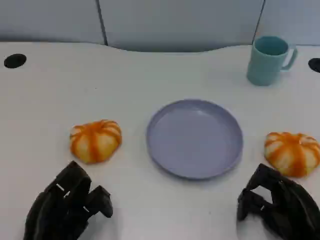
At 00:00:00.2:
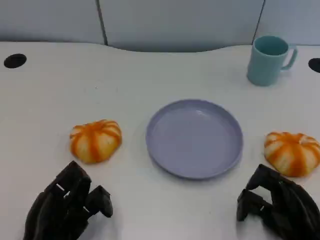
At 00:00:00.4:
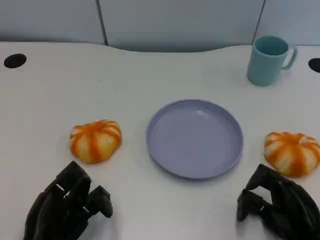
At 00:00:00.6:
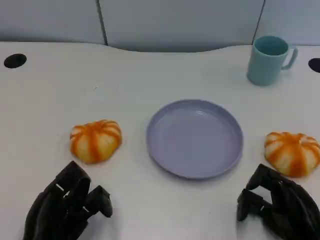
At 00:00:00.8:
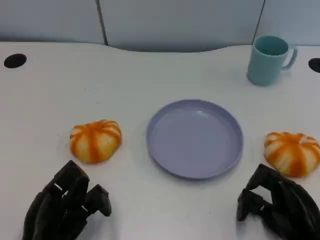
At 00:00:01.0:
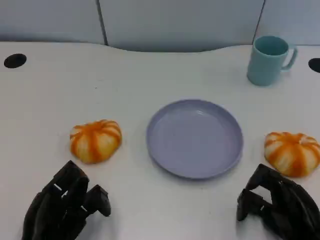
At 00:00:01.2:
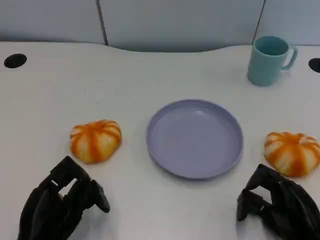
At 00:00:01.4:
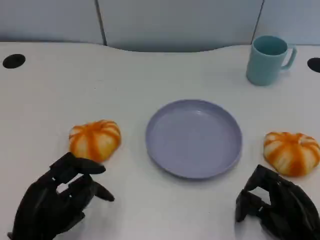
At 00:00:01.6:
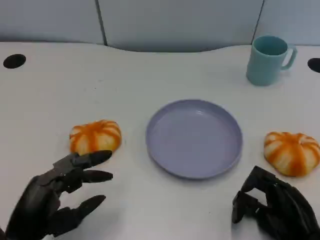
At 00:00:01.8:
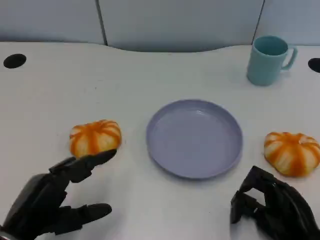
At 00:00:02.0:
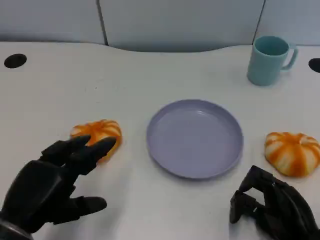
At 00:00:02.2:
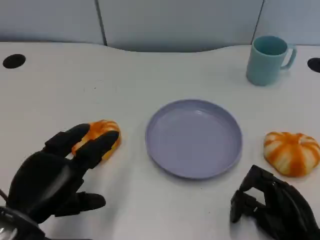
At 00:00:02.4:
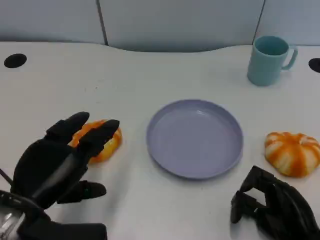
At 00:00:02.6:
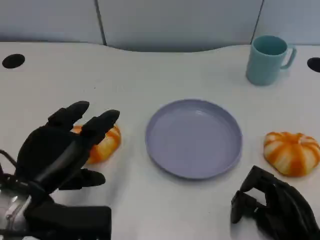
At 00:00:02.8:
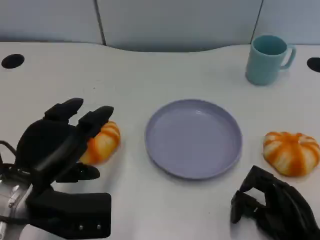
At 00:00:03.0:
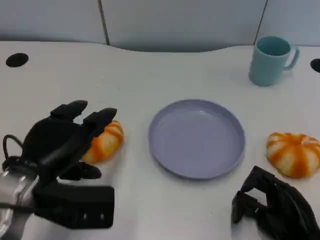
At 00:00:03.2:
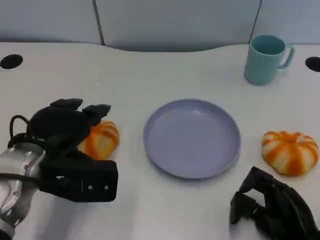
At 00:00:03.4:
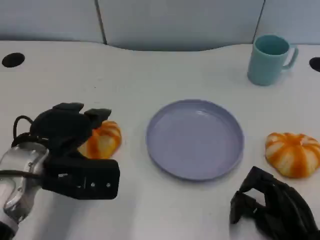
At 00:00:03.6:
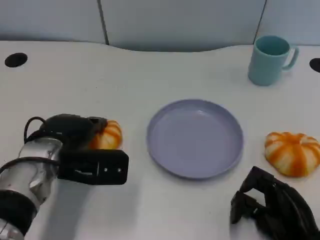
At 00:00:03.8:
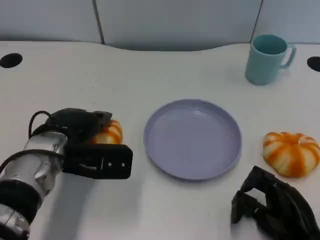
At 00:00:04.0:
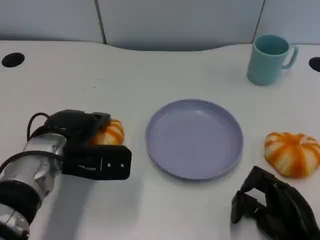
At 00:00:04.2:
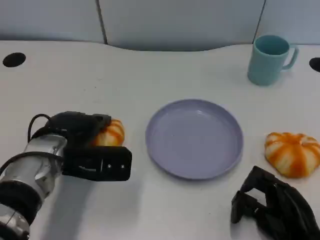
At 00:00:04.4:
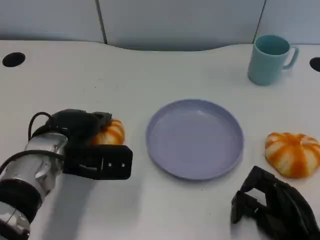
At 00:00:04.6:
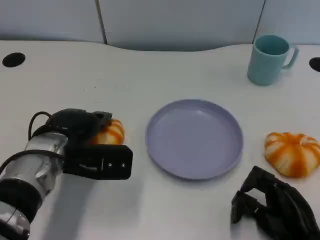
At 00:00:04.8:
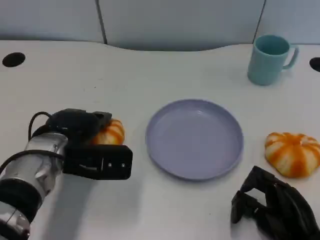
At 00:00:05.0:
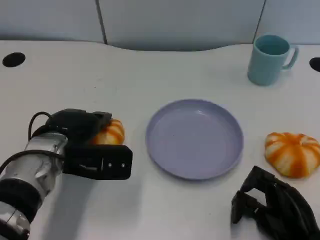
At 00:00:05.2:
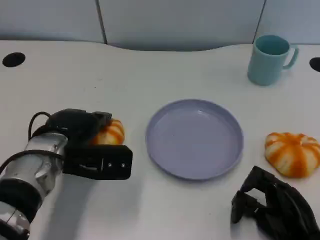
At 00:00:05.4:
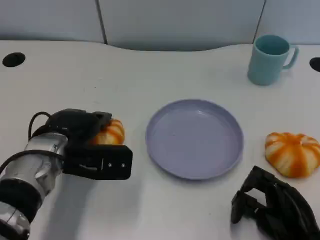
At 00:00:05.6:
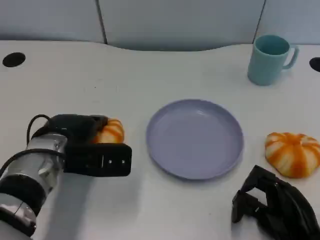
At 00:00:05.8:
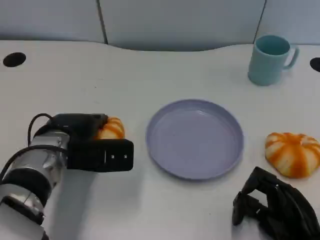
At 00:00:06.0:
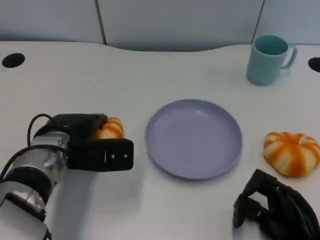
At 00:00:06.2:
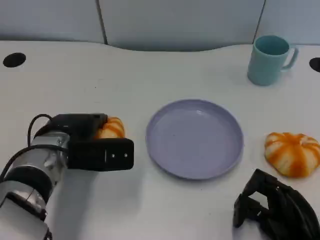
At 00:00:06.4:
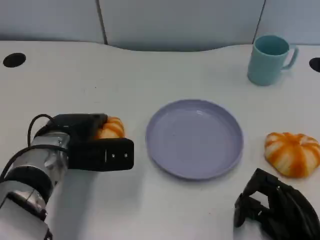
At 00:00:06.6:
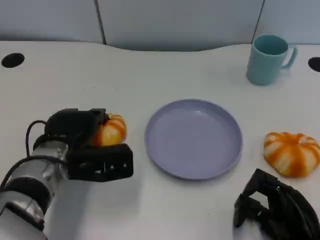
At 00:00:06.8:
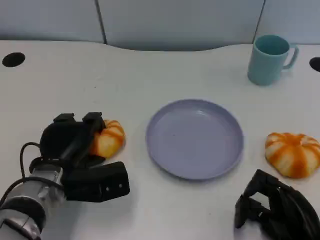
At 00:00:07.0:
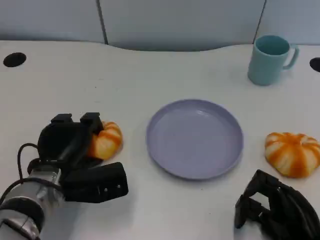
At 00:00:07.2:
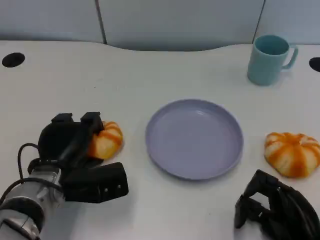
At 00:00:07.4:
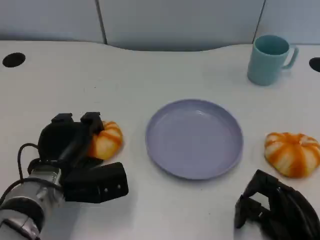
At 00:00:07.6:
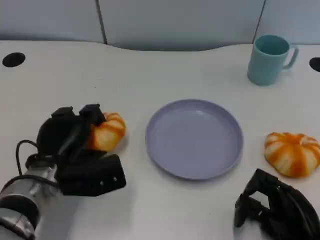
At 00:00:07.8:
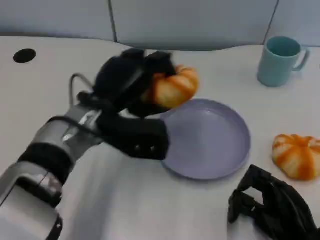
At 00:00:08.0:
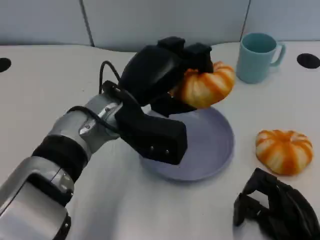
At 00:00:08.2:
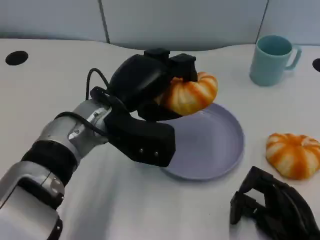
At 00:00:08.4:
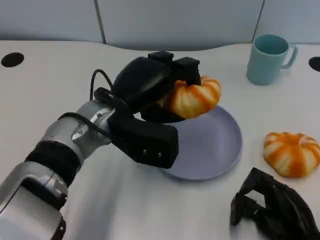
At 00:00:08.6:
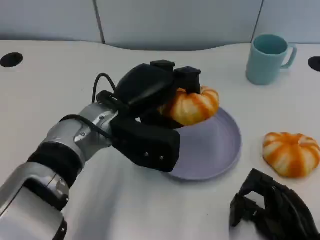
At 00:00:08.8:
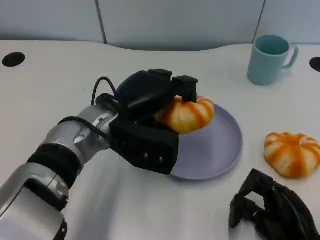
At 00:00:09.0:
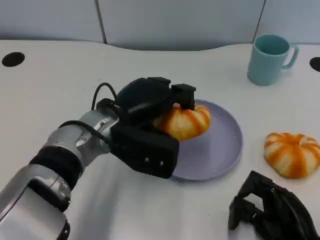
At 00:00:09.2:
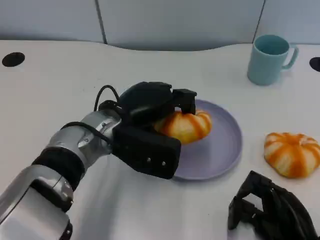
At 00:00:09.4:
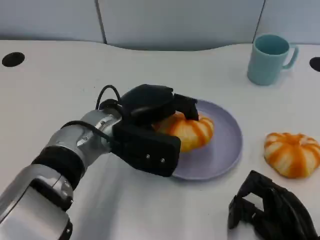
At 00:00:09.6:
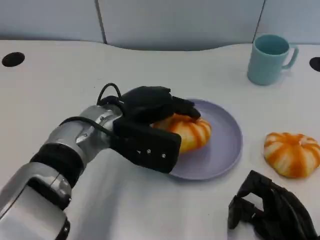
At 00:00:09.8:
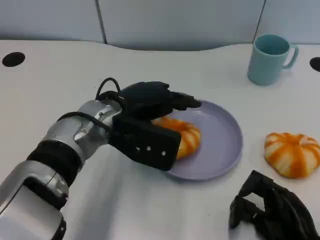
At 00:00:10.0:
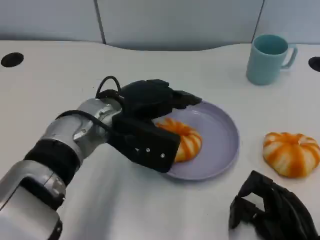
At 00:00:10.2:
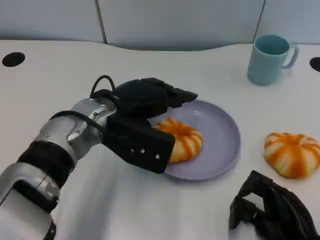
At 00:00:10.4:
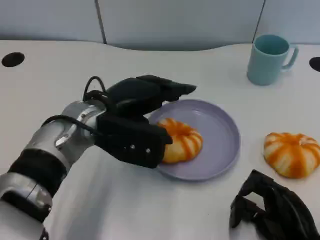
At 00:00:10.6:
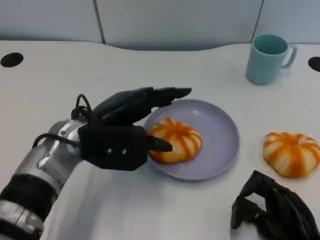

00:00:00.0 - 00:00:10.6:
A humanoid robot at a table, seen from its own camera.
Task of the whole recording: Grasp the bread from the table and place it into the plate.
00:00:01.6 - 00:00:03.0: The left hand shifts roughly 10 cm forward and upward.
00:00:03.0 - 00:00:04.6: The left hand heads forward, covering roughly 5 cm.
00:00:04.6 - 00:00:06.0: The hands move only a little.
00:00:07.6 - 00:00:09.0: The left hand goes some 10 cm to the right and upward.

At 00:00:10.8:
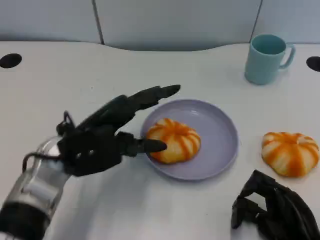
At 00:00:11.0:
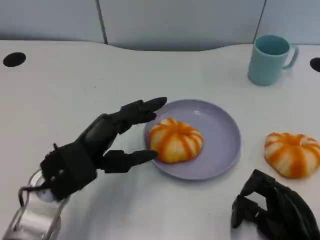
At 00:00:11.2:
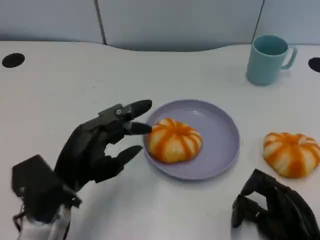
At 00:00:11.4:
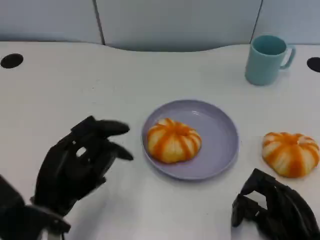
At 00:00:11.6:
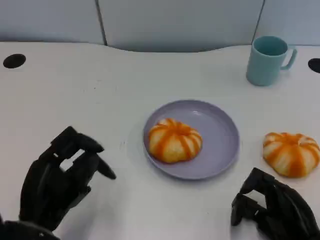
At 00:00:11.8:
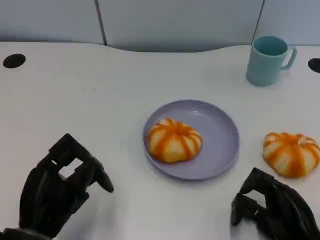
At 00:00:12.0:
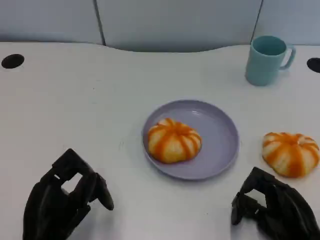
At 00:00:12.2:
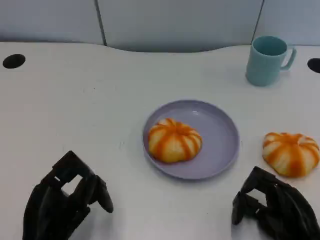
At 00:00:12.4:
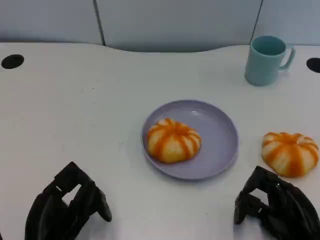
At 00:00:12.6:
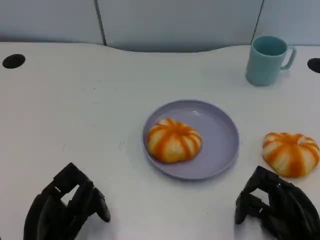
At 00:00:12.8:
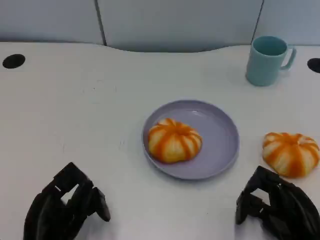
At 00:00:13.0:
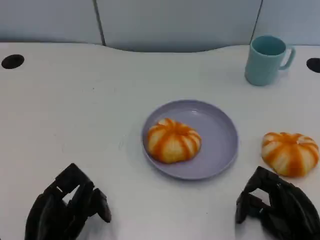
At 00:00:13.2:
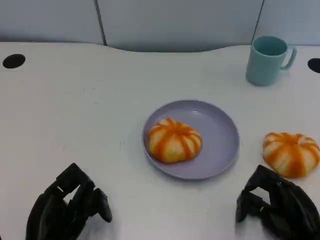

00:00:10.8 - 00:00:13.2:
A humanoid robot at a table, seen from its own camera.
Task of the whole recording: Grasp the bread from the table and place it into the plate.
00:00:10.8 - 00:00:12.0: The left hand goes approximately 15 cm backward and downward.
00:00:12.0 - 00:00:13.2: The hands make only small movements.

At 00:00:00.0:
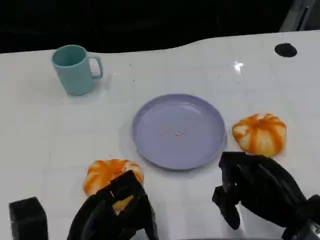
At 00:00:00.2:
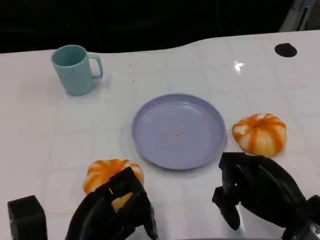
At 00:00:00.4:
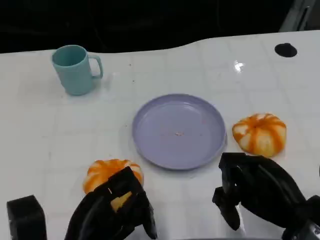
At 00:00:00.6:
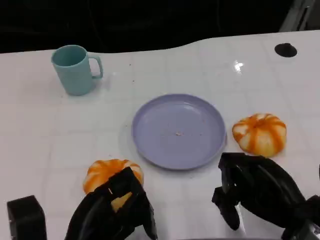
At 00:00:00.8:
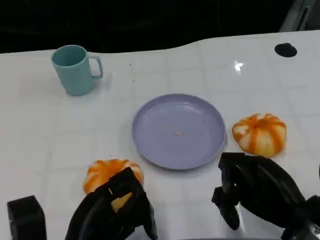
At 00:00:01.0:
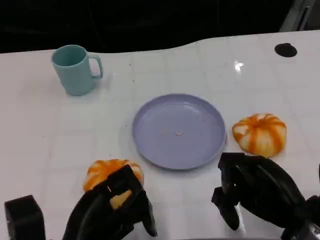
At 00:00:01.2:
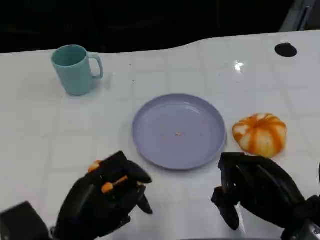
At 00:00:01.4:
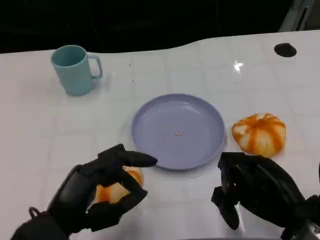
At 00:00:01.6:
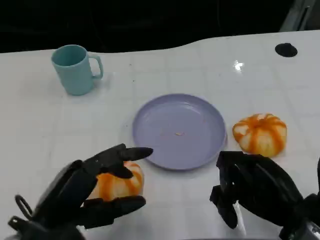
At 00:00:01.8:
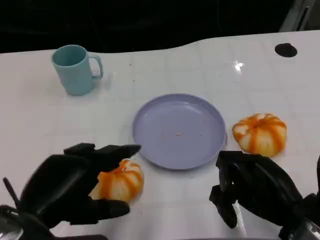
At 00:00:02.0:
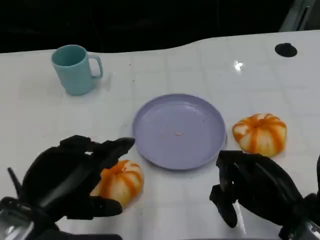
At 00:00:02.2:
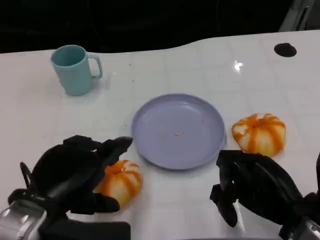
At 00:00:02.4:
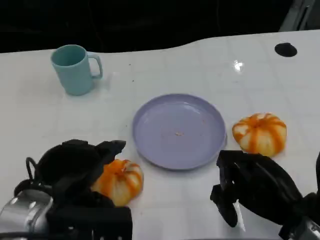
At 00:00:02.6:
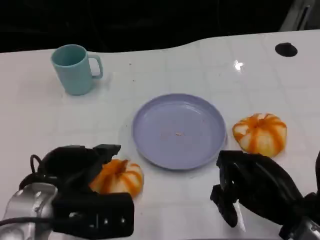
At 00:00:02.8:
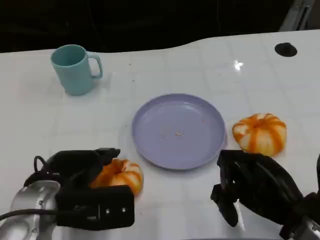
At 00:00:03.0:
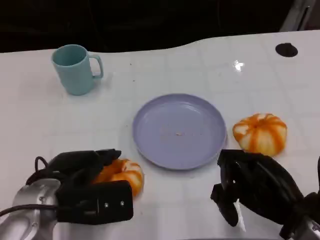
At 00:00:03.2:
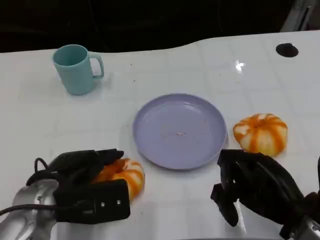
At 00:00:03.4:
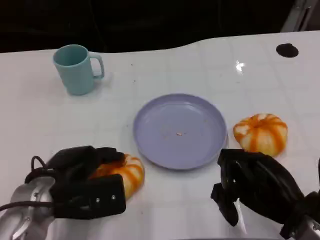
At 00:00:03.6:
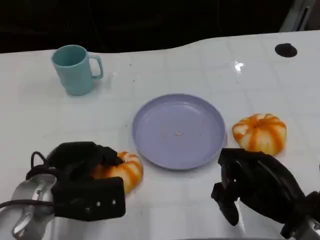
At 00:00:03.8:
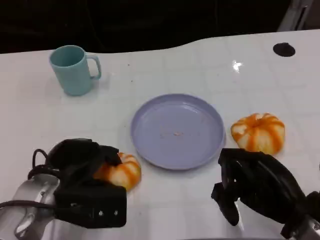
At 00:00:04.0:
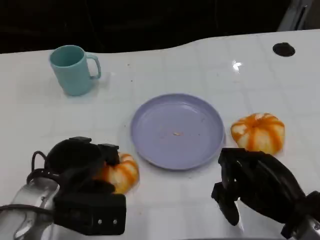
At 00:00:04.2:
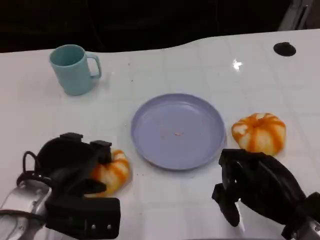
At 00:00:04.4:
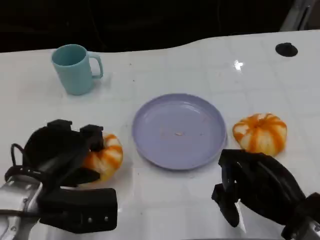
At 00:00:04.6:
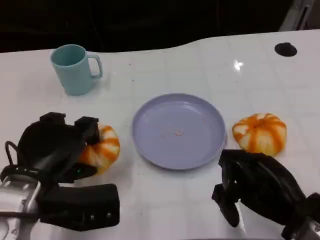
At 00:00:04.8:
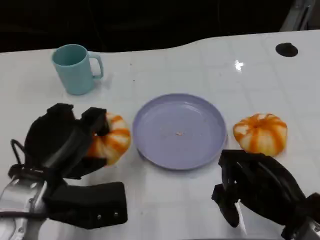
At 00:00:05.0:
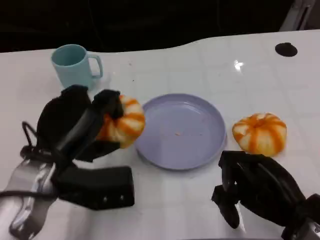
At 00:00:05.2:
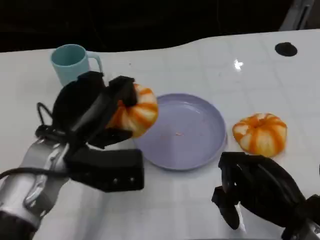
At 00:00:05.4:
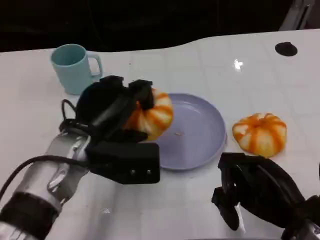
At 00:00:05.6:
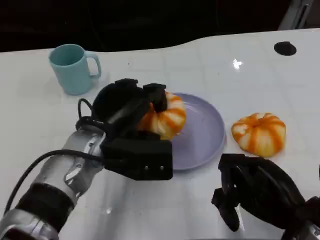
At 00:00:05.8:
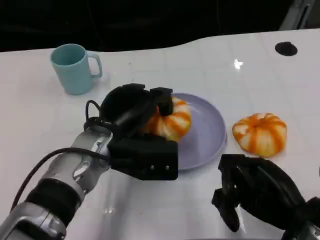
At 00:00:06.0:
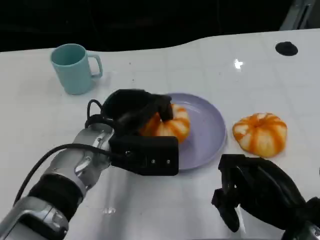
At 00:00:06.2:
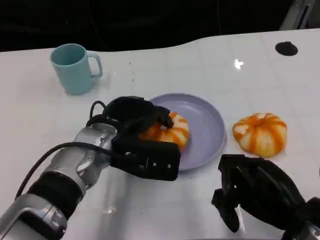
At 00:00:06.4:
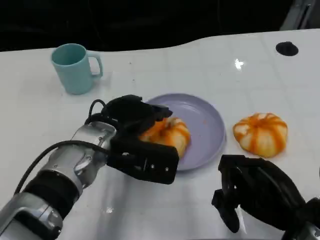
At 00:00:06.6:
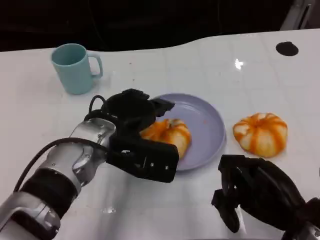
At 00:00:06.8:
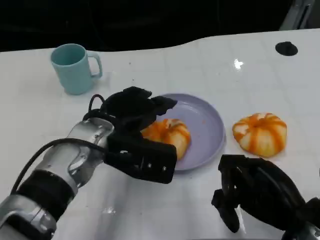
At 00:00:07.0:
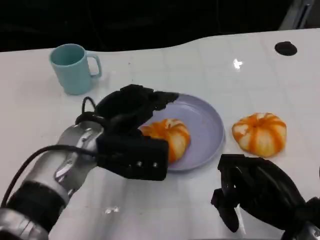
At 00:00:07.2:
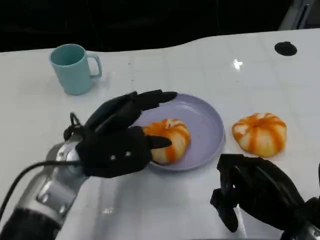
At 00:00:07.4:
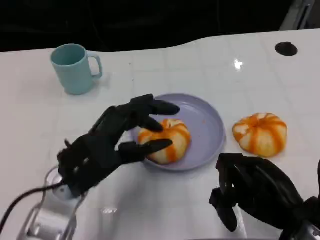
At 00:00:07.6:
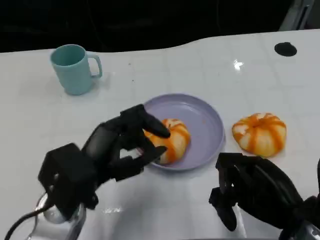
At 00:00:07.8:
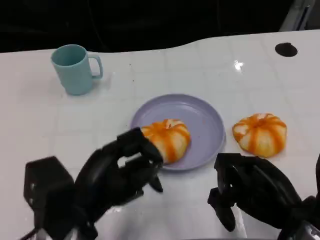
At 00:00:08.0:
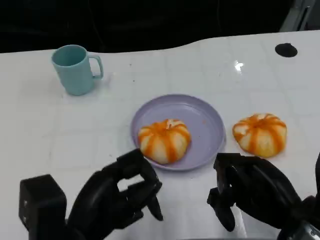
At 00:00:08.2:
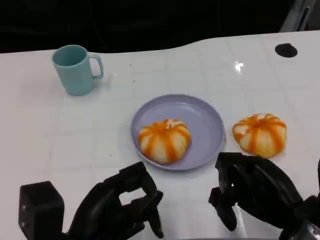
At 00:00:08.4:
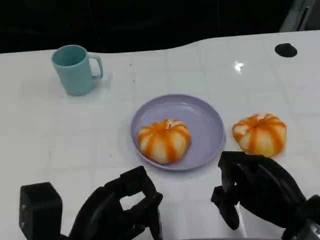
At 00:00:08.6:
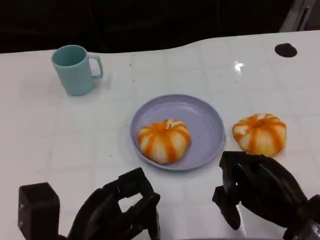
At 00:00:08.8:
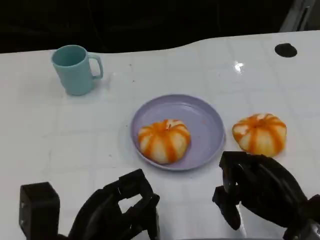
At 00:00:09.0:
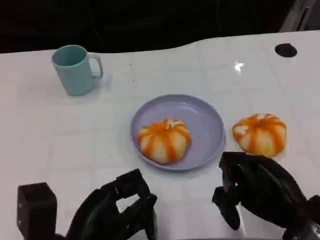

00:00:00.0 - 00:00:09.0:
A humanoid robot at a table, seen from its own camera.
Task of the whole recording: Grasp the bread from the table and place it into the plate.
00:00:00.0 - 00:00:01.6: The left hand shifts roughly 5 cm upward.
00:00:01.6 - 00:00:03.0: The left hand travels forward by about 10 cm.
00:00:04.4 - 00:00:06.0: The left hand moves to the right and forward, roughly 15 cm.
00:00:06.0 - 00:00:07.6: The left hand goes about 10 cm backward and to the left.
00:00:07.6 - 00:00:09.0: The left hand moves backward, approximately 5 cm.
